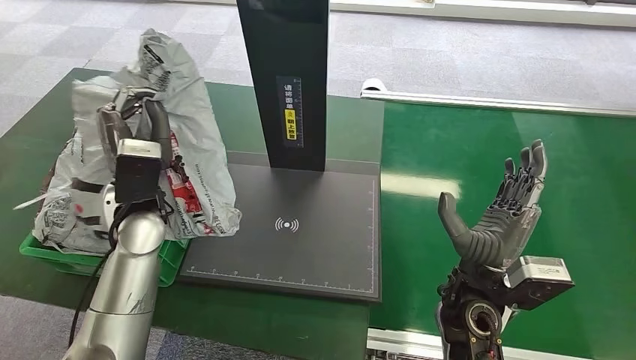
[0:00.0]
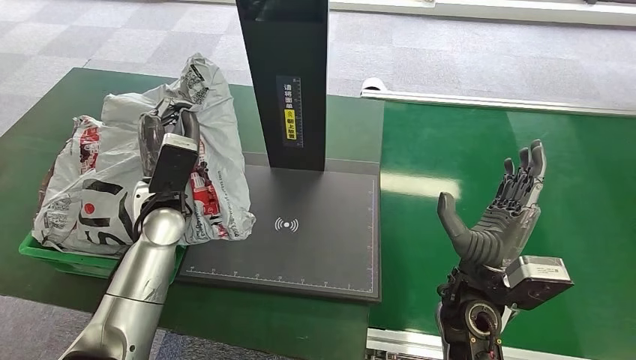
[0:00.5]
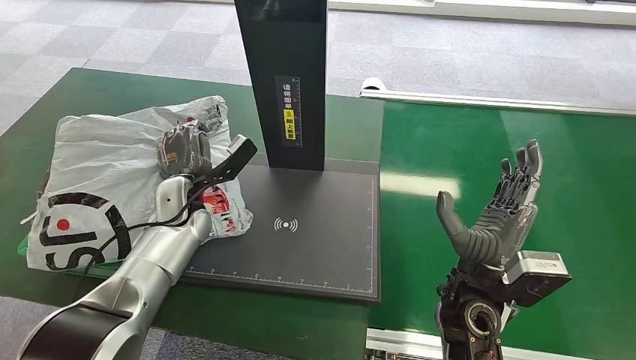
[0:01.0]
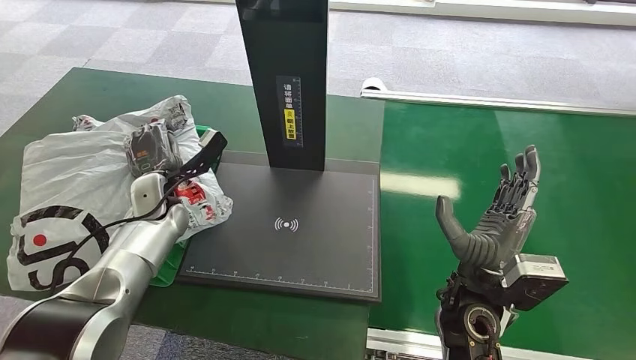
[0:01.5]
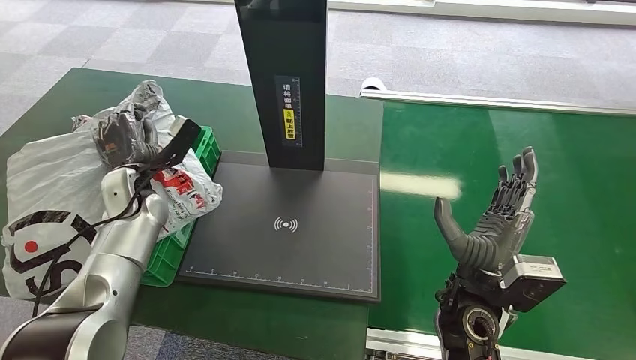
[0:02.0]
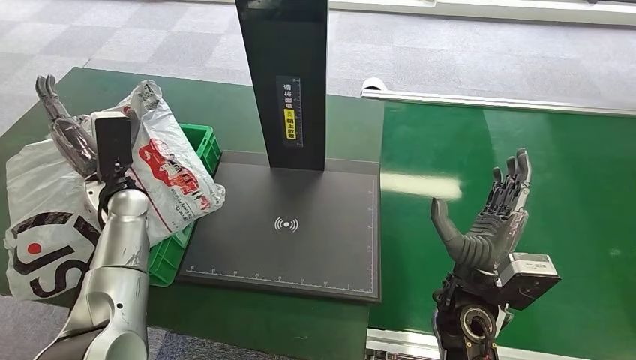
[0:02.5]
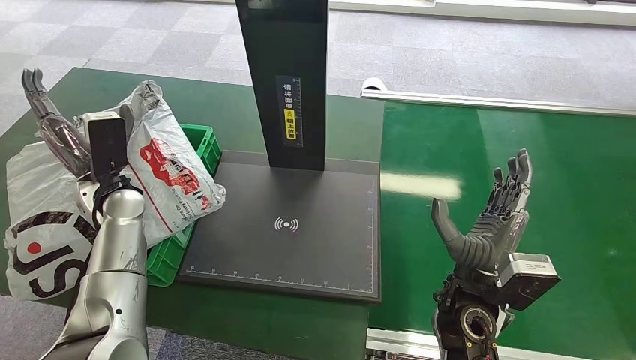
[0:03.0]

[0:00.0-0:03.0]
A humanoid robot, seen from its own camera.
Step, 0:00.0 to 0:03.0: Place the package into the parcel locker.
0:01.5 to 0:03.0: The left hand travels upward by about 5 cm.
